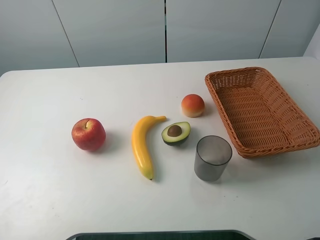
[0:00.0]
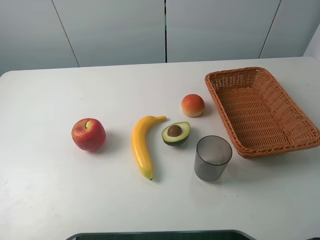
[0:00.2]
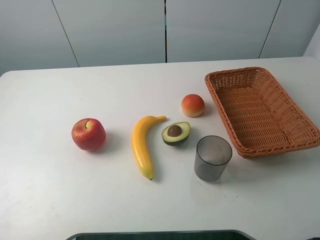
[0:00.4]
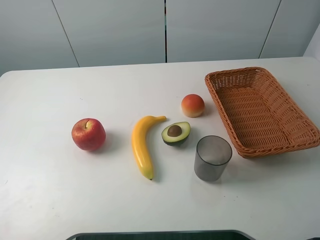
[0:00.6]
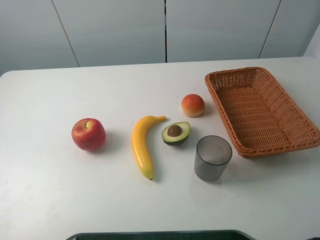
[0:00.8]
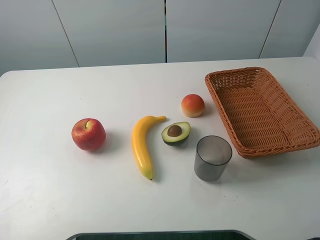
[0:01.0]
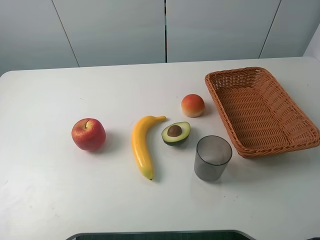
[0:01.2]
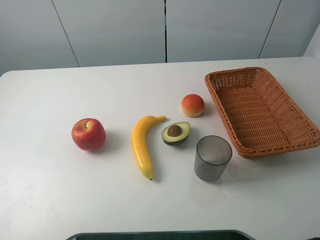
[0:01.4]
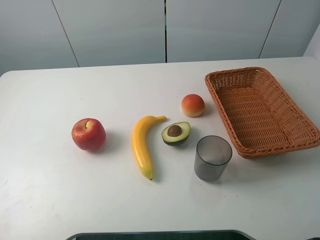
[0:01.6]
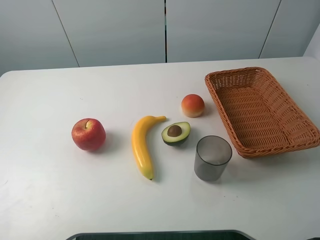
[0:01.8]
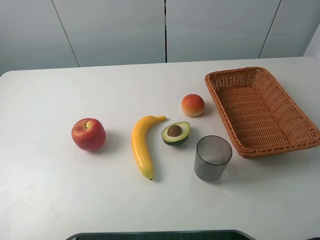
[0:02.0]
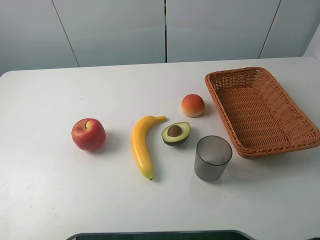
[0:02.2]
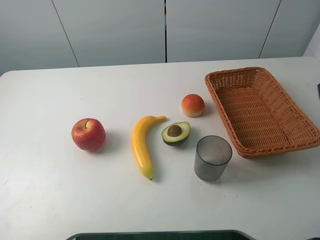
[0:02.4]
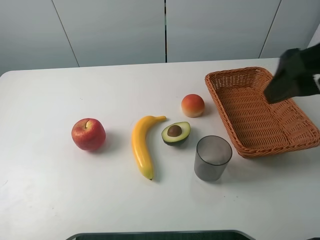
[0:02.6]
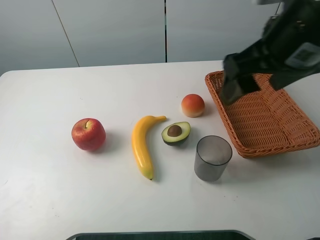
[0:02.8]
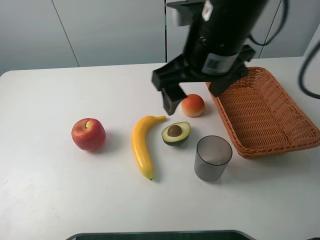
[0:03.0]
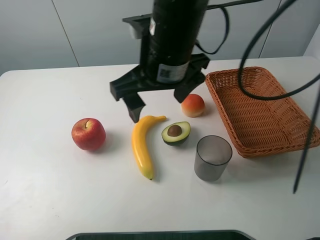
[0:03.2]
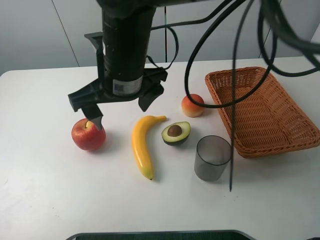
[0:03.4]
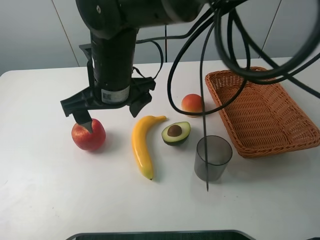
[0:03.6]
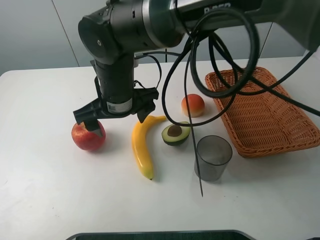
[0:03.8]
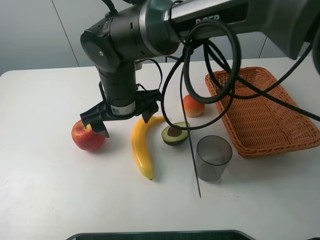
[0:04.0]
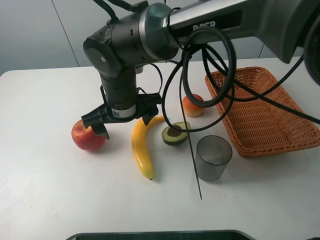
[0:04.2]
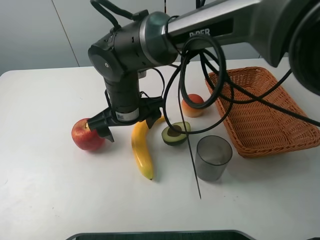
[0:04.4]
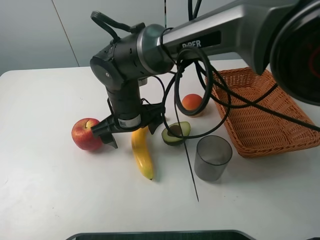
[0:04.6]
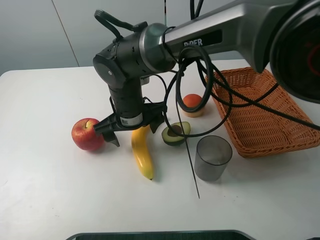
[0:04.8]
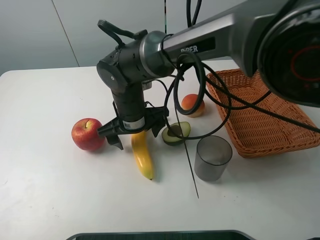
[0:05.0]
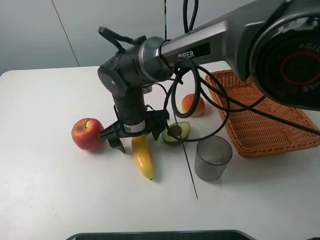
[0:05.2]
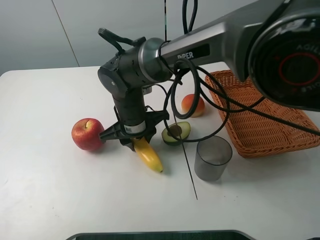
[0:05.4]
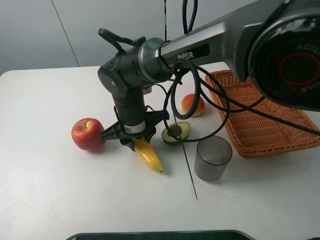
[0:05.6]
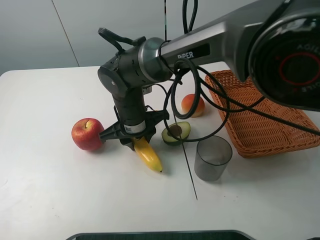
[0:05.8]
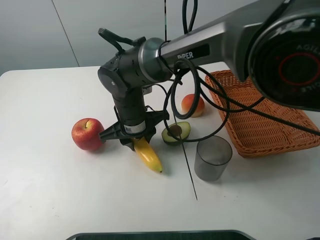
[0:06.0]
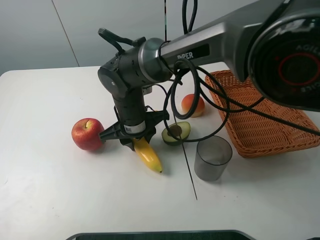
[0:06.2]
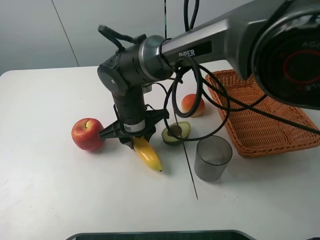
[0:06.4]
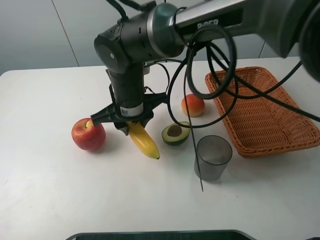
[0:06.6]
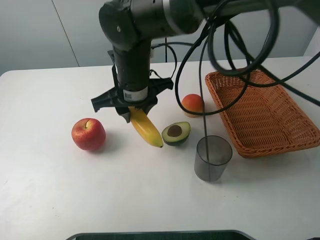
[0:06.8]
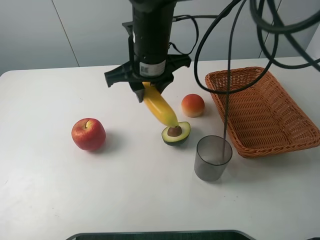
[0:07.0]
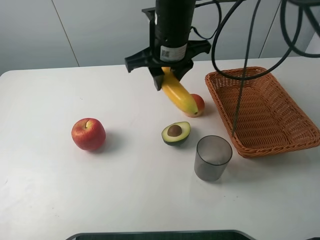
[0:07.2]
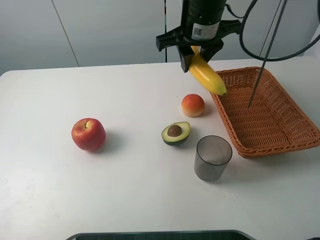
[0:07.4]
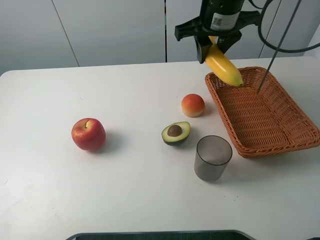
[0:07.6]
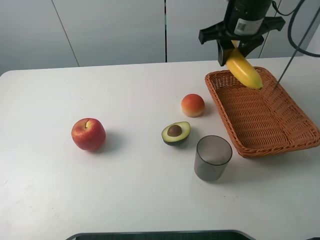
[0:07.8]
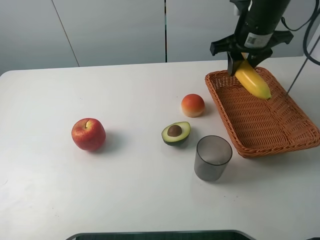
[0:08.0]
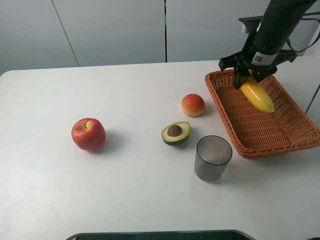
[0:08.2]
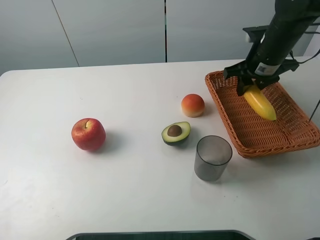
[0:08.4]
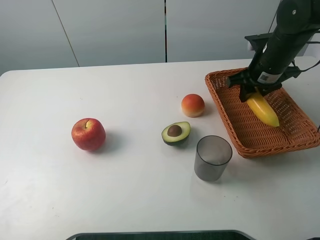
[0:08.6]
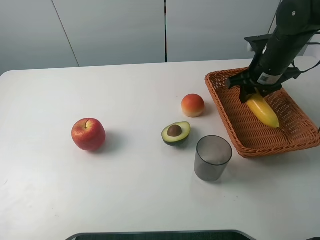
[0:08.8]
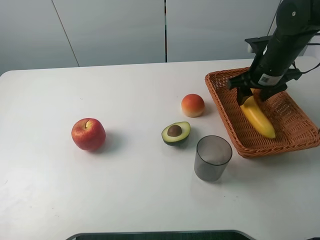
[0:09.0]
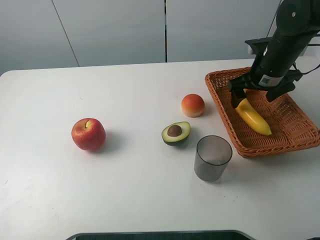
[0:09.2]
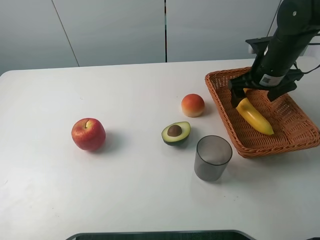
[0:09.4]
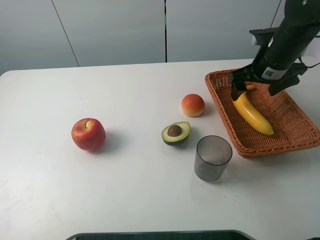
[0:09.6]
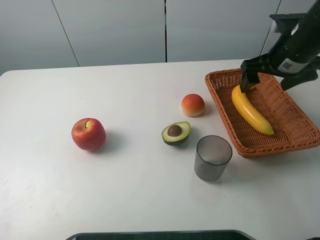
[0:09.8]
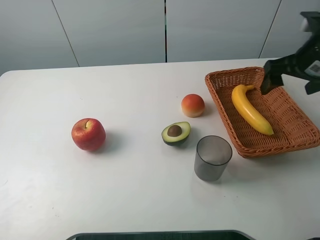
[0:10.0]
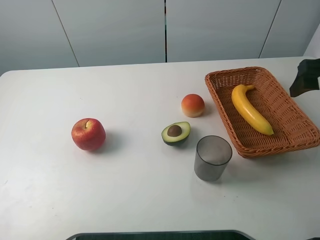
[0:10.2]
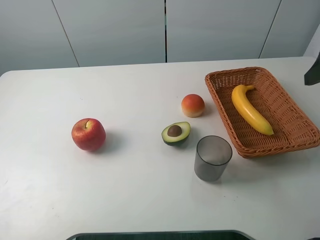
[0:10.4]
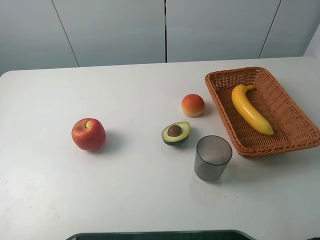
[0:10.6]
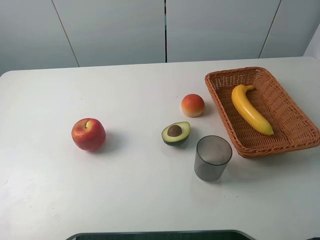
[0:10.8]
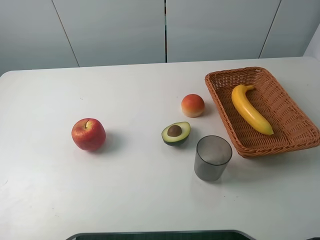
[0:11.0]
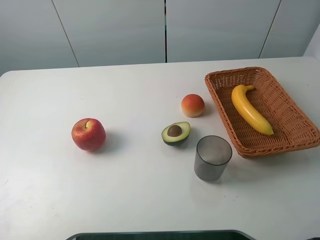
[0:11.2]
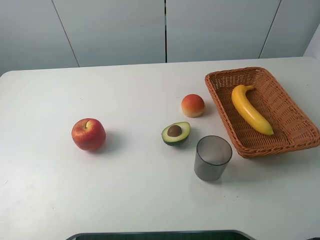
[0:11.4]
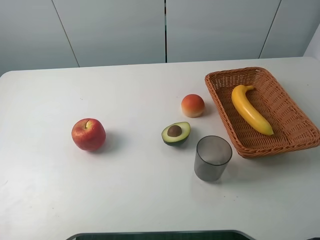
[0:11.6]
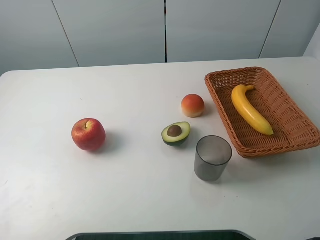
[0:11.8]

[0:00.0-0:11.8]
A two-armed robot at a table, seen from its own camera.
Task of the whole recording: randomly pick up an item from the table and put it in the basket.
Step, 0:00.0 to 0:05.6: Grasp the banana with the right gripper.
Step, 0:05.8 to 0:09.6: Place the banana into the basket with the right gripper.
0:00.0 to 0:01.4: Both grippers stay about where they are.
0:01.4 to 0:03.0: The right gripper travels to the left and forward by roughly 35 cm.
0:03.0 to 0:04.4: The right gripper is displaced downward and to the left by approximately 20 cm.
0:04.4 to 0:06.0: The right gripper closes its fingers.
0:06.0 to 0:07.4: The right gripper shifts approximately 25 cm upward, to the right and forward.
0:07.4 to 0:08.8: The right gripper moves to the right and downward, some 20 cm.
0:08.8 to 0:10.4: The right gripper moves backward, upward and to the right, roughly 20 cm, and opens.

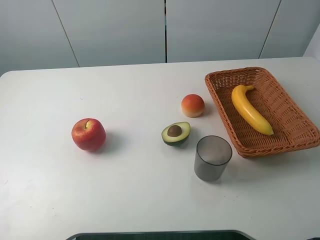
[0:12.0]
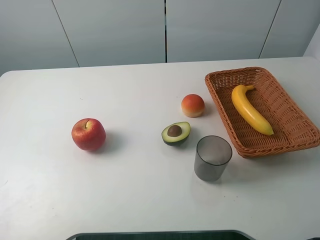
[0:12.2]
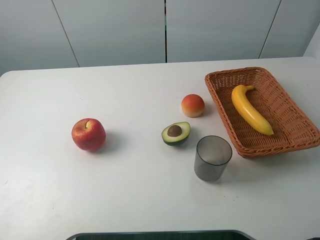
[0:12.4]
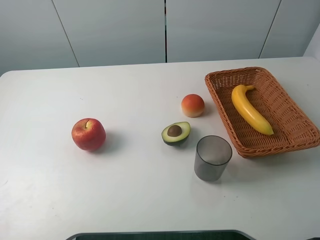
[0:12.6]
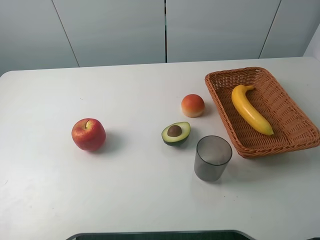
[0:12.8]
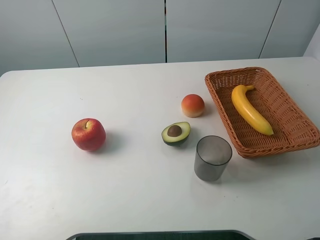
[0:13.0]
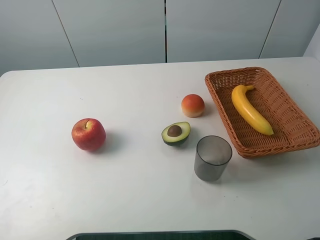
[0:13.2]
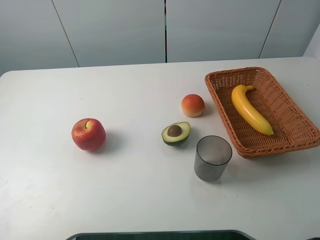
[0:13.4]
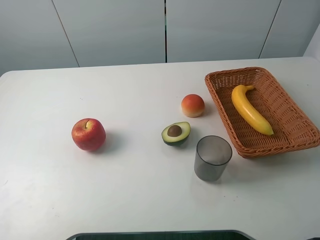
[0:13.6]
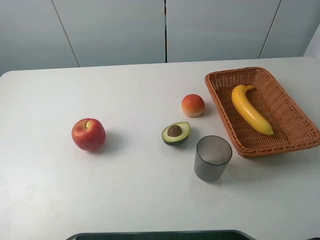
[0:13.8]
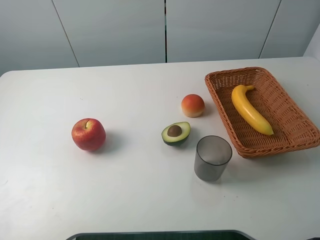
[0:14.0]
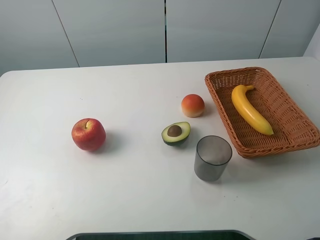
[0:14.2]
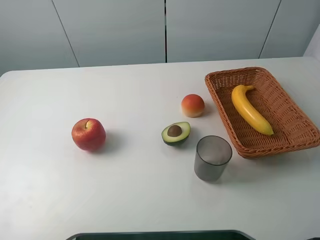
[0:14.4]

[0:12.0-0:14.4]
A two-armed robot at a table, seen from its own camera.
Task of the whole recording: randomly pick up an item from the table and put it in the basket.
0:12.0 to 0:14.4: The two grippers keep their place.

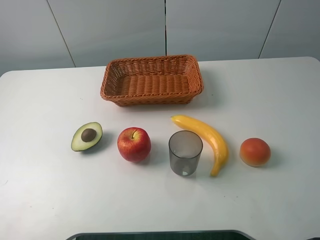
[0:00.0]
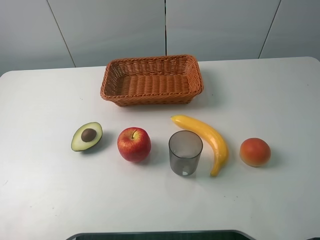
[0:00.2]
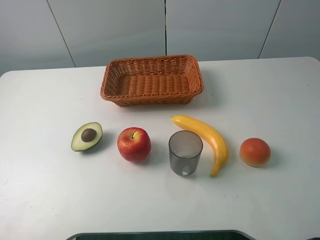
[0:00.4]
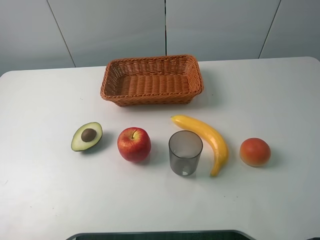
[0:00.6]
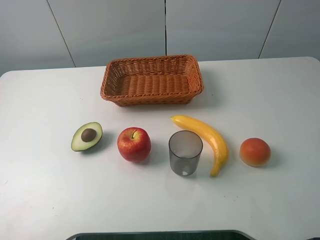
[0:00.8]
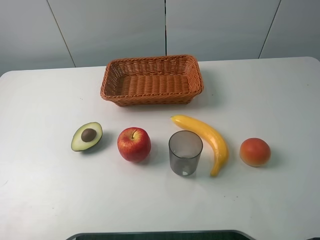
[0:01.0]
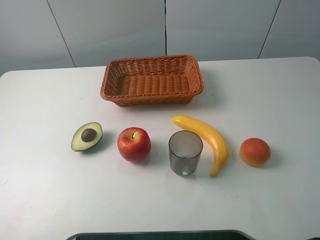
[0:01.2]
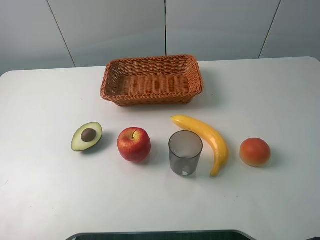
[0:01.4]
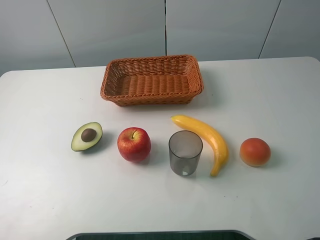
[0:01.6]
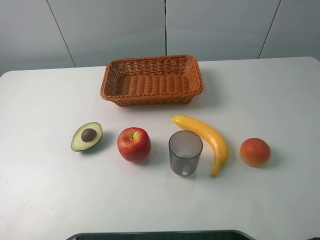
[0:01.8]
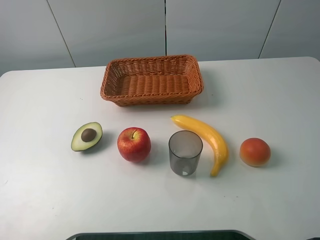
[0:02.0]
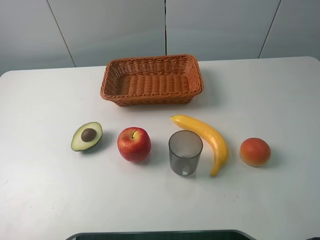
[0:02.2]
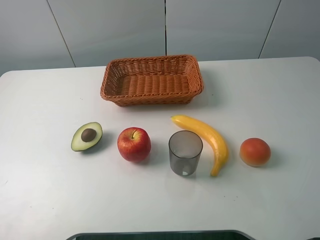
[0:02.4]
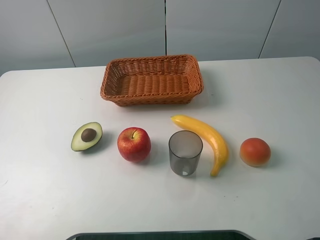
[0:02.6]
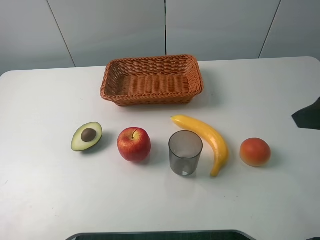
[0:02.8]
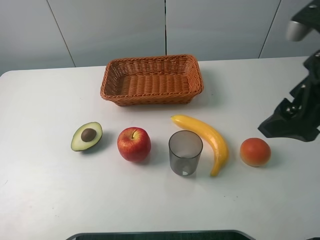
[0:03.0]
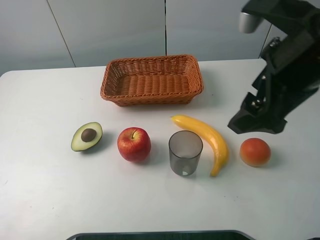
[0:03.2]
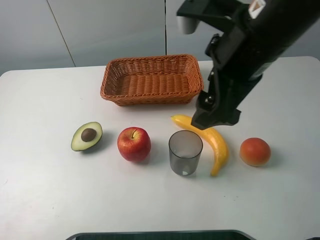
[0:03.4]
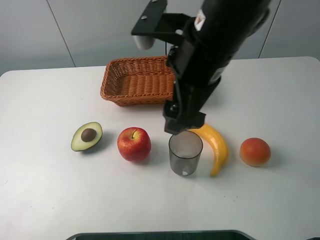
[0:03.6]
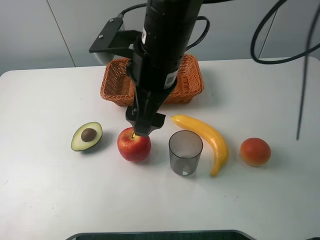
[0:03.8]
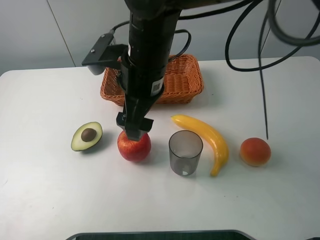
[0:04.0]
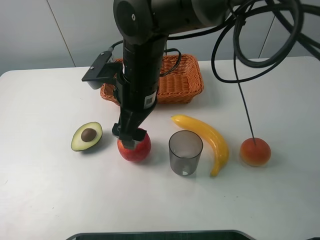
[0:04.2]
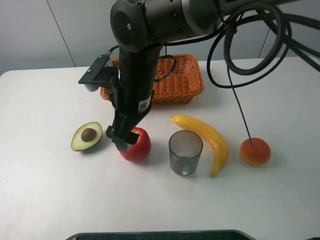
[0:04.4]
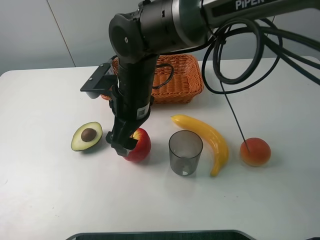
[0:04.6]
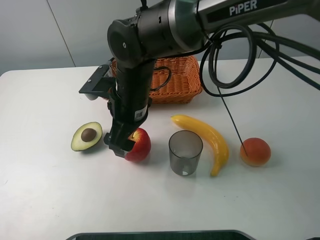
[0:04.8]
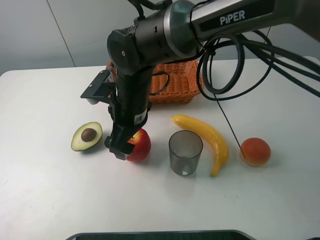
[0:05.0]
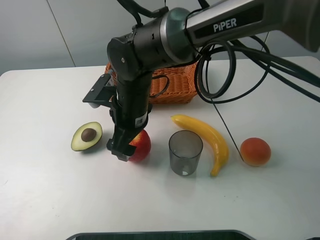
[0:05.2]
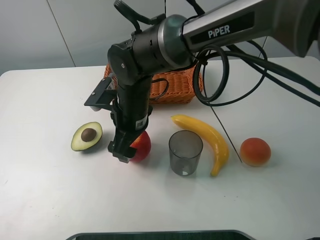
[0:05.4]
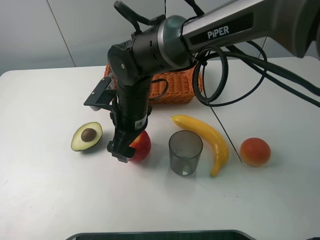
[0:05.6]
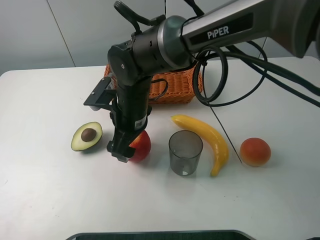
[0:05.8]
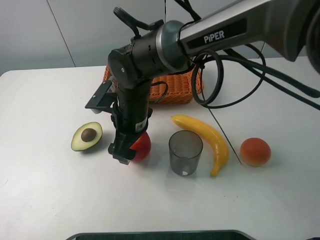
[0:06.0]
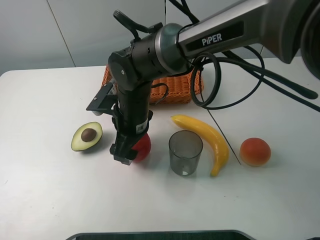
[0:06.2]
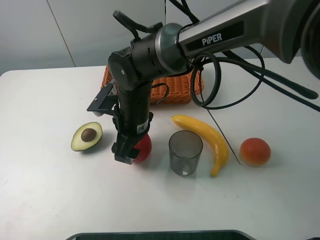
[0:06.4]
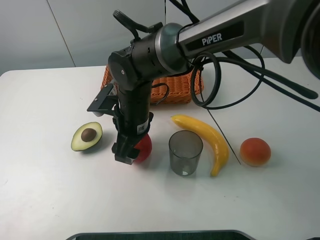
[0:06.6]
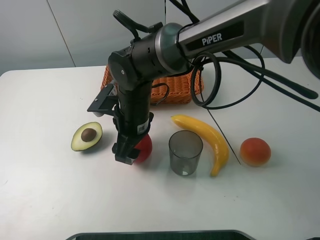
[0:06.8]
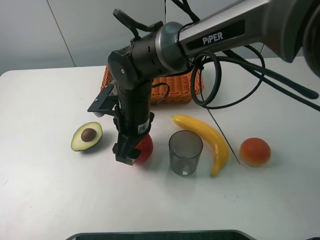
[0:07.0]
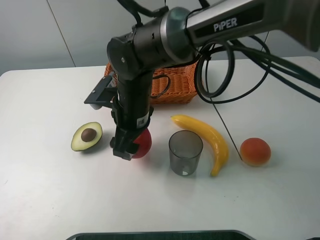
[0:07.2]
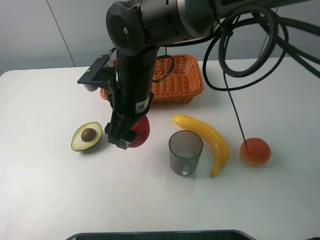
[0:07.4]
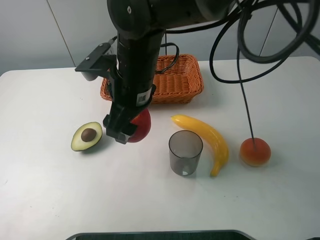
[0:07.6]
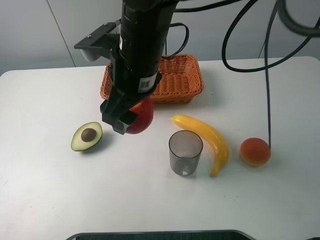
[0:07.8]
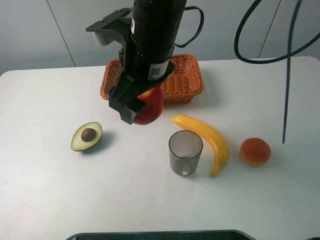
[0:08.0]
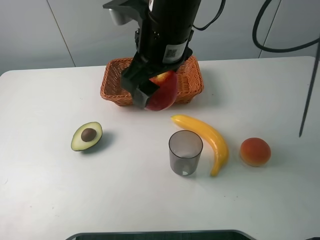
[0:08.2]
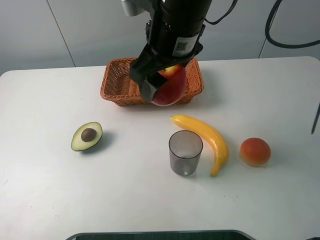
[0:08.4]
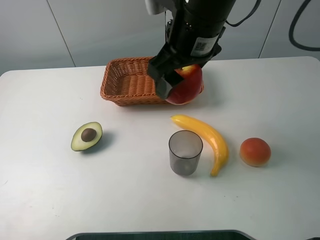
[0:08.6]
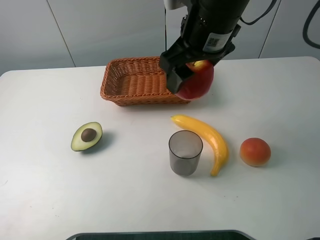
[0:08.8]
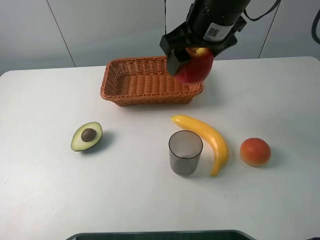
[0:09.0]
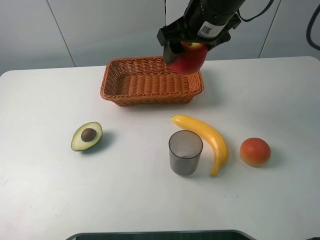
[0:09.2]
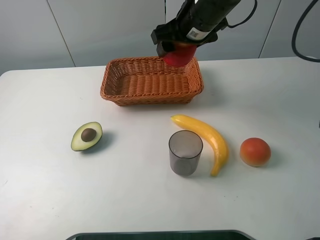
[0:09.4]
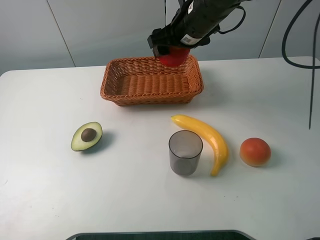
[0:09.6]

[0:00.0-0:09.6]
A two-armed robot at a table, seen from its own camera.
Task of the whole recording: randomly pick up an item from the table and put it in the basket.
Step, 0:00.0 to 0:06.4: Grasp the apple with the right gripper.
0:00.0 to 0:01.6: Both grippers stay about where they are.
0:01.6 to 0:03.2: The right gripper is displaced forward and to the left by approximately 20 cm.
0:03.2 to 0:04.8: The right gripper heads to the left and downward, covering about 25 cm.
0:04.8 to 0:06.4: The right gripper closes its fingers.
0:06.4 to 0:08.0: The right gripper travels upward by approximately 15 cm.
0:08.0 to 0:09.6: The right gripper heads forward and to the right, covering approximately 15 cm.
